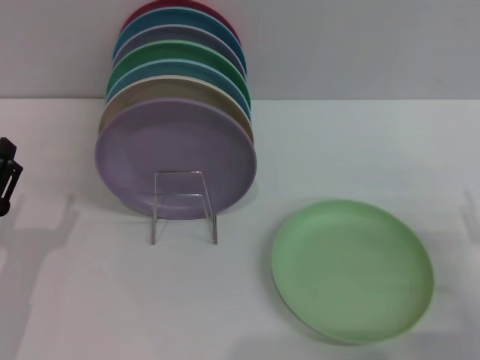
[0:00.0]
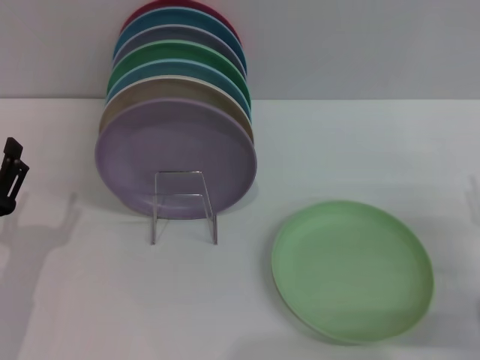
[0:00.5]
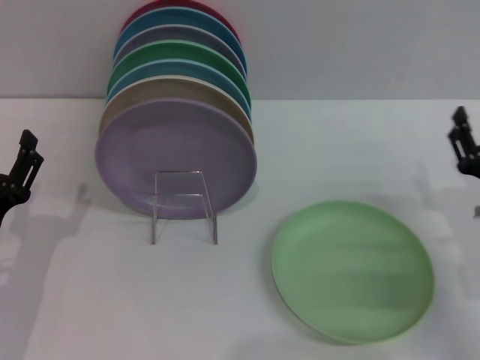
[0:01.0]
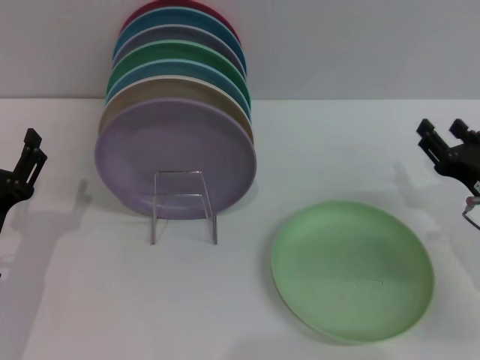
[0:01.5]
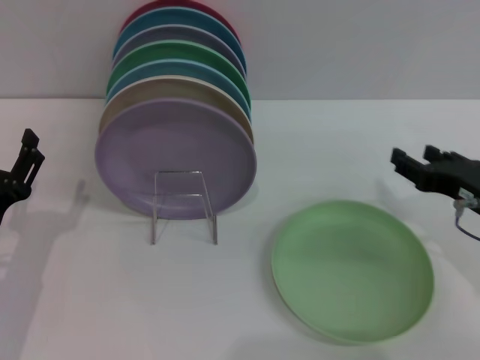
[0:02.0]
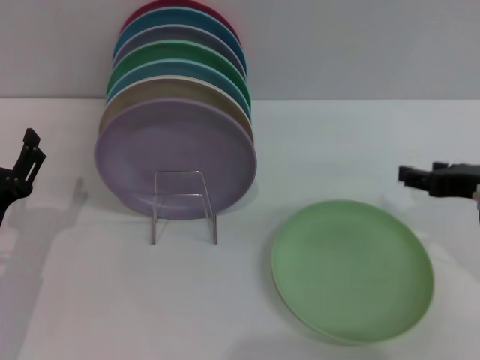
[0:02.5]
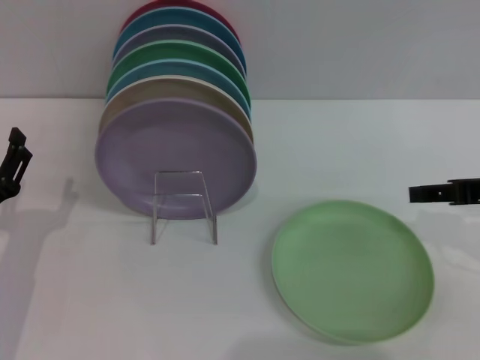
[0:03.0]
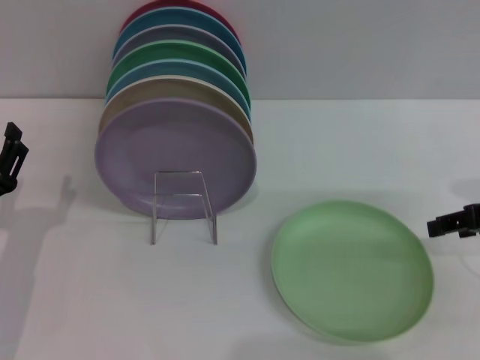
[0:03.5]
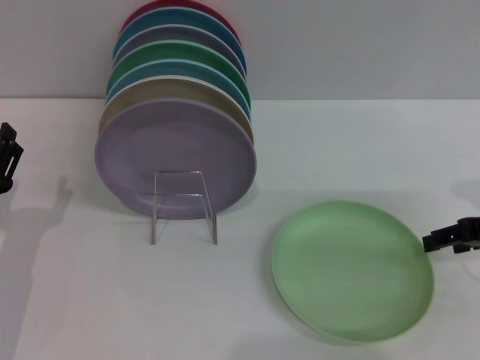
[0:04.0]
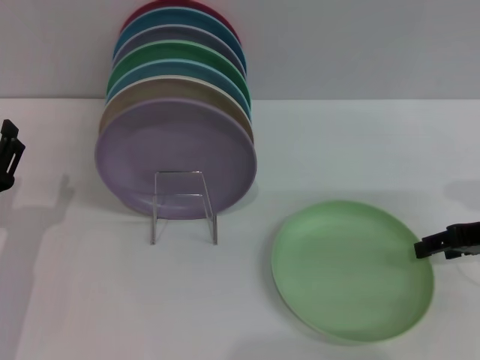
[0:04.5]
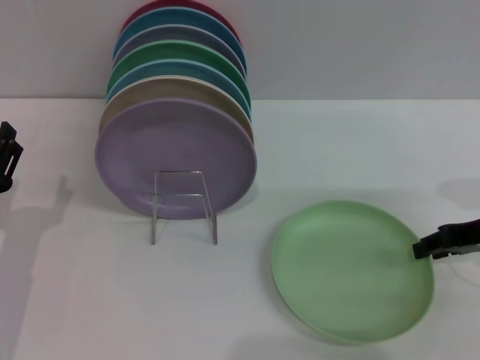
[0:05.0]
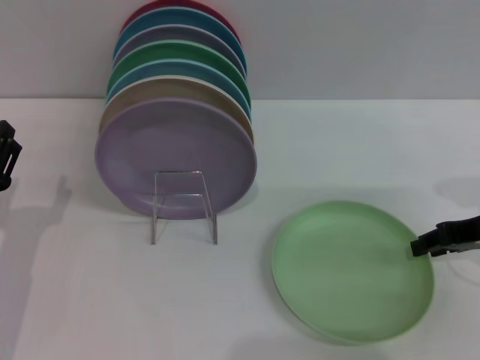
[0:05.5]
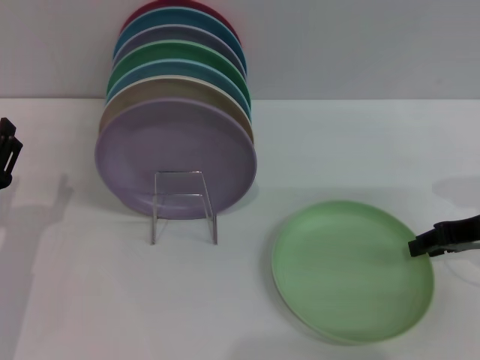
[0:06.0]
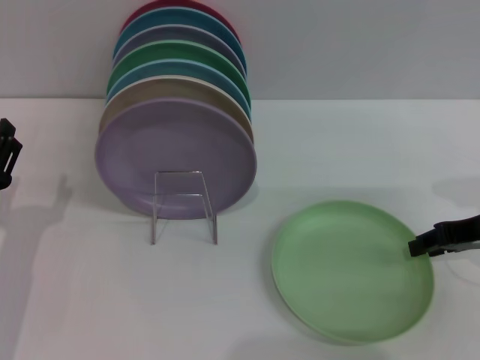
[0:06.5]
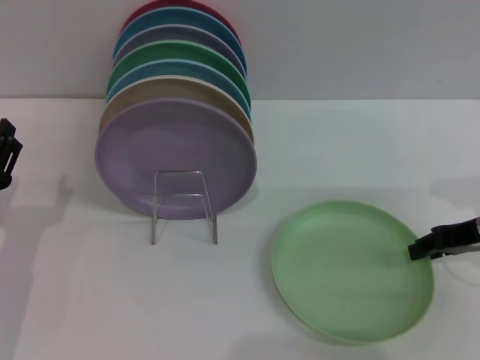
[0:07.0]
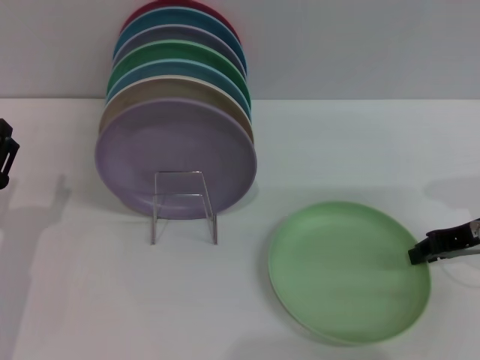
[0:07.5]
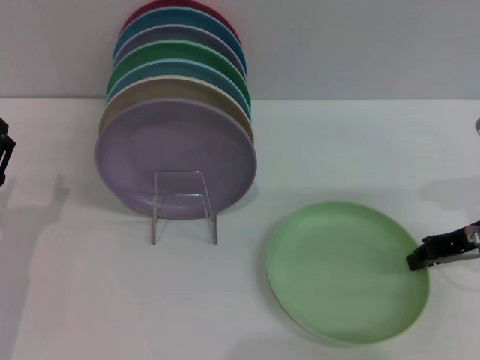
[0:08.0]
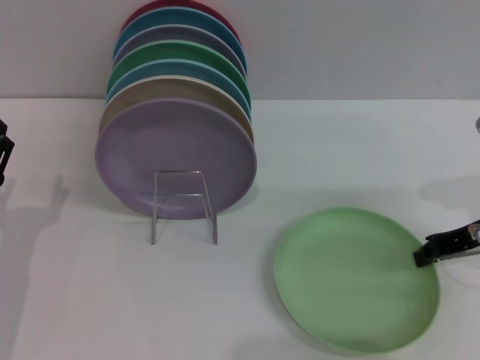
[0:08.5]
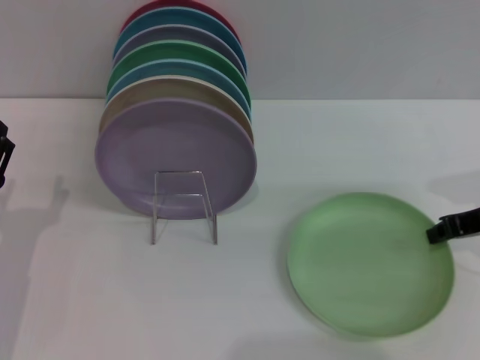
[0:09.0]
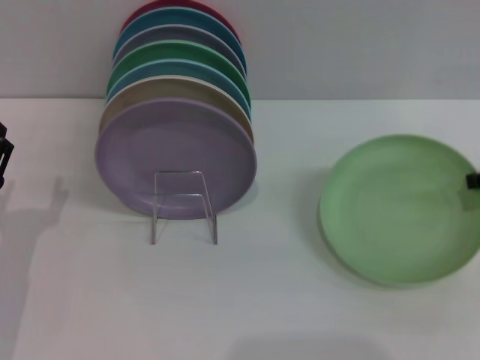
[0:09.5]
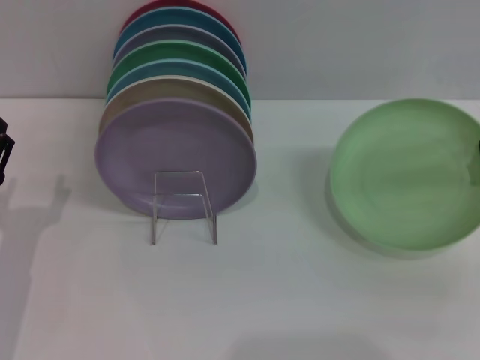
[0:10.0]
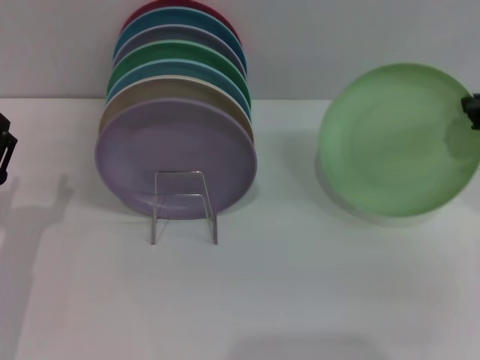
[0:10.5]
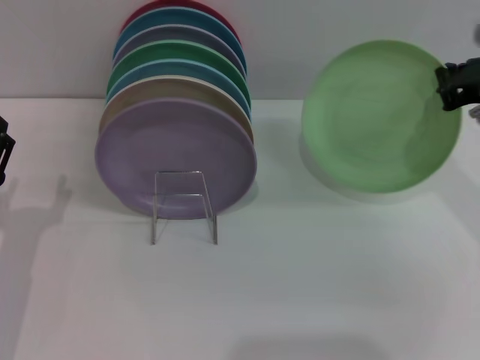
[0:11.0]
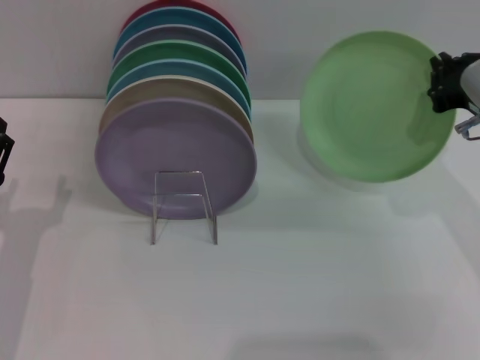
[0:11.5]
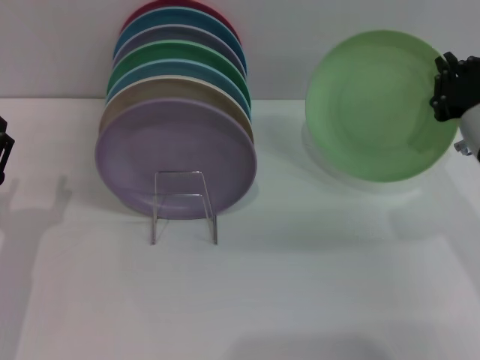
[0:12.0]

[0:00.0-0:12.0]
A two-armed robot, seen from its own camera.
Task of the whole recording: Grip the plate with one hand, pass it to the other, then set it on the shelf.
0:00.0 to 0:02.0: The right gripper heads forward and upward, covering about 10 cm.
0:02.0 to 0:04.0: The right gripper moves roughly 5 cm.
0:06.0 to 0:08.0: There are only small adjustments of the grippers.
0:08.0 to 0:10.0: The right gripper is displaced upward by approximately 5 cm.
0:10.0 to 0:12.0: The right gripper heads to the left and downward, covering about 10 cm.

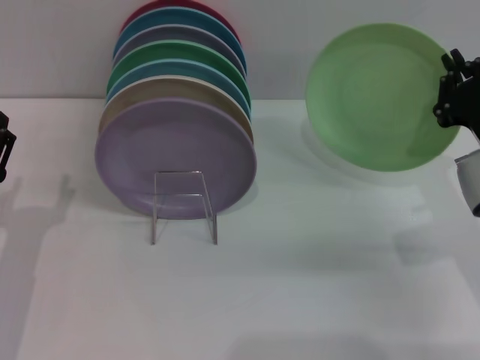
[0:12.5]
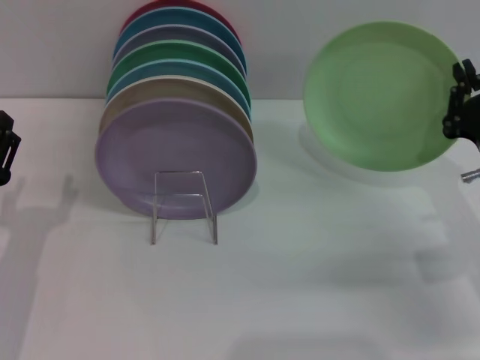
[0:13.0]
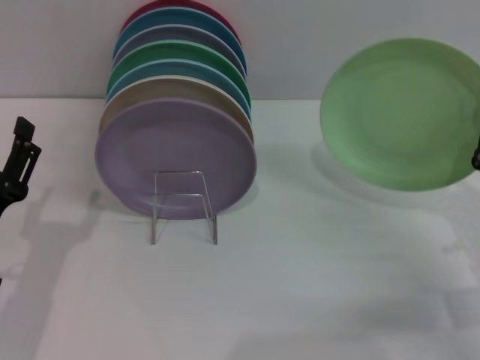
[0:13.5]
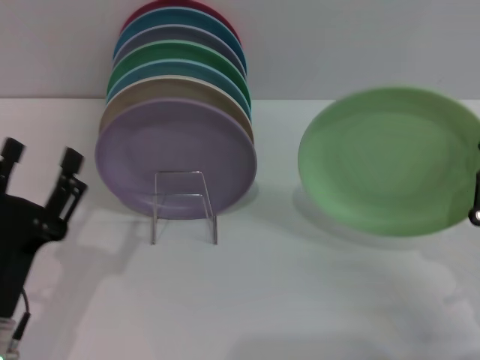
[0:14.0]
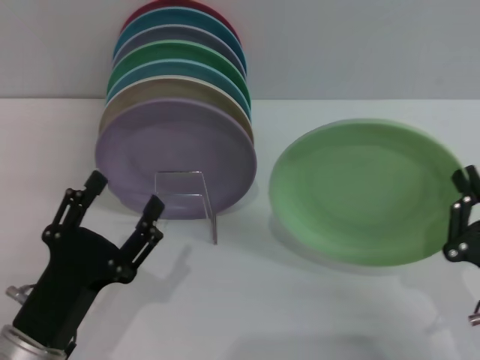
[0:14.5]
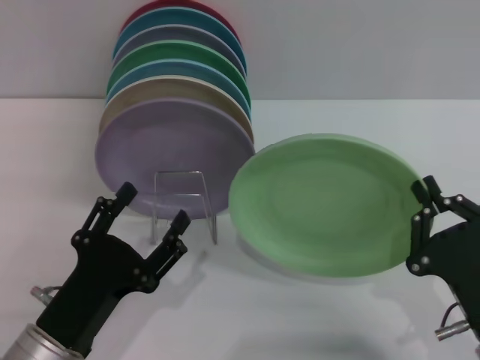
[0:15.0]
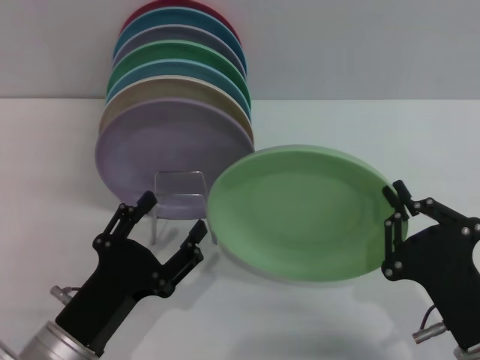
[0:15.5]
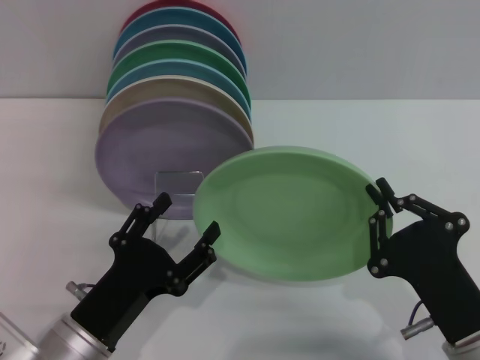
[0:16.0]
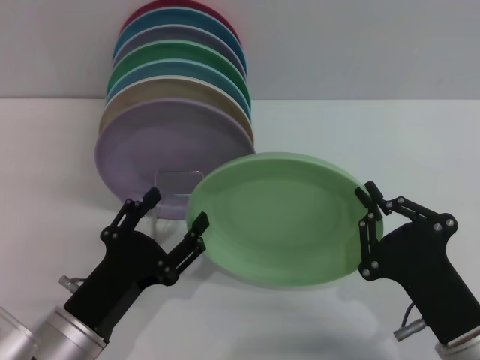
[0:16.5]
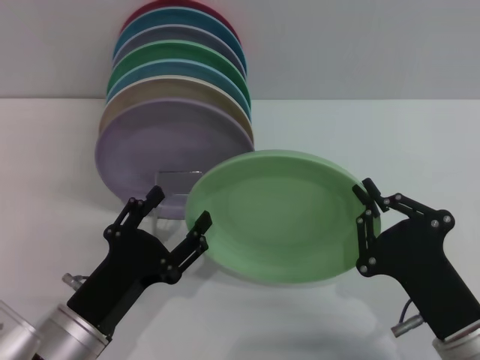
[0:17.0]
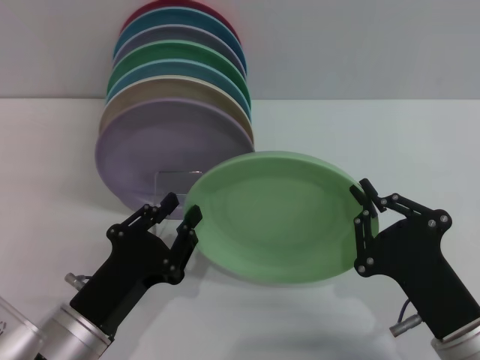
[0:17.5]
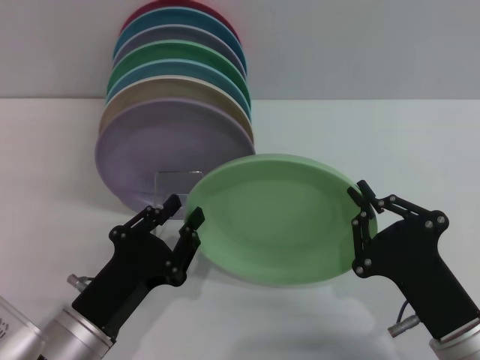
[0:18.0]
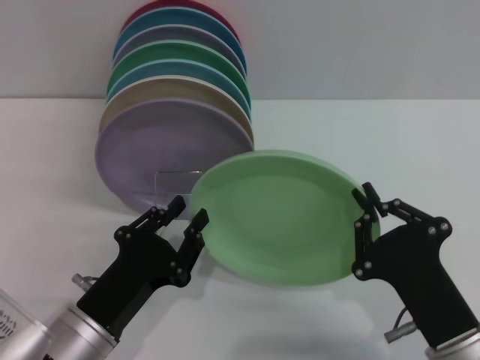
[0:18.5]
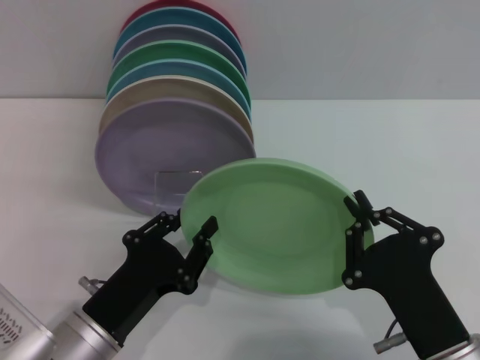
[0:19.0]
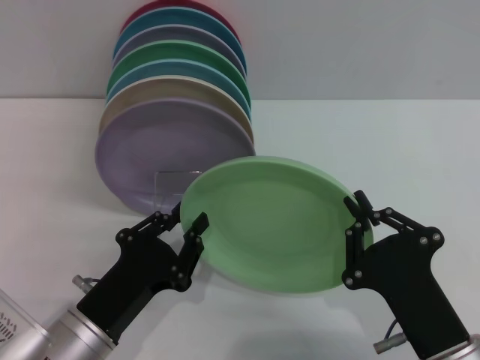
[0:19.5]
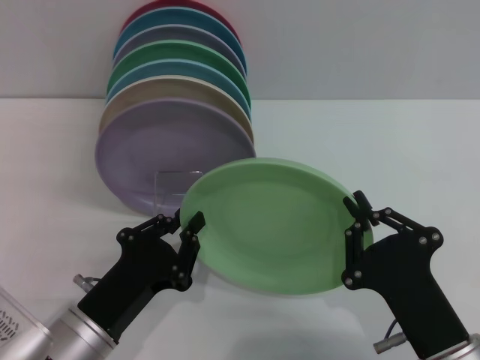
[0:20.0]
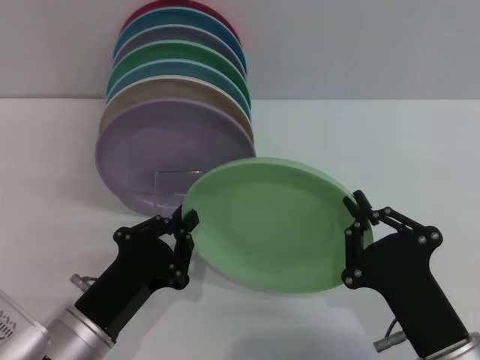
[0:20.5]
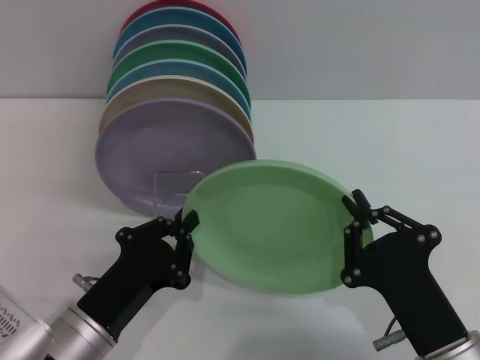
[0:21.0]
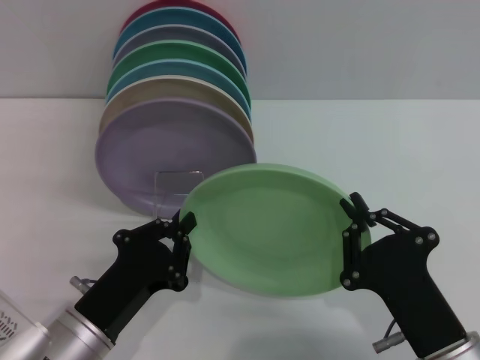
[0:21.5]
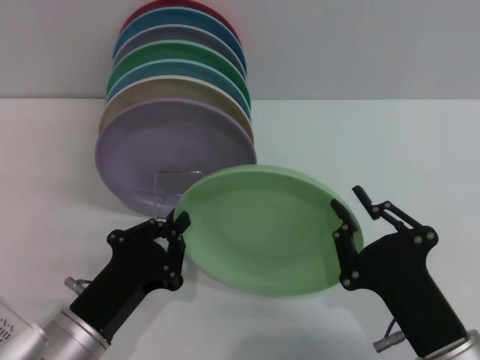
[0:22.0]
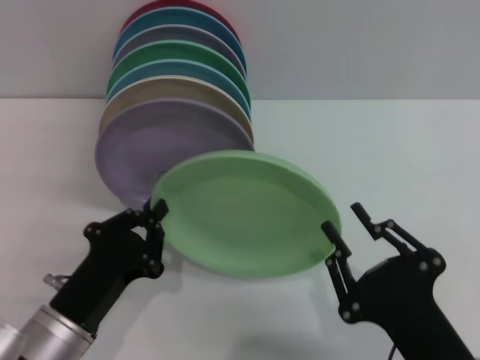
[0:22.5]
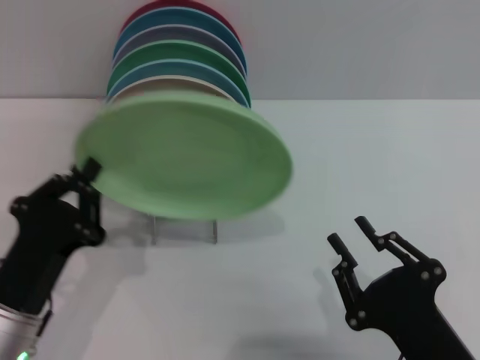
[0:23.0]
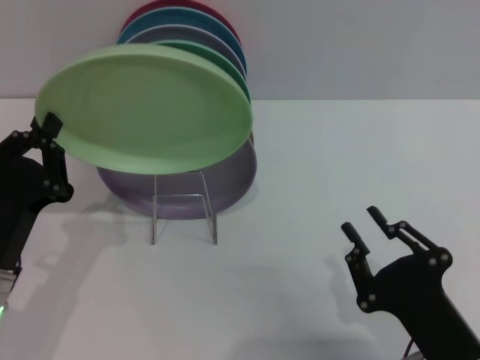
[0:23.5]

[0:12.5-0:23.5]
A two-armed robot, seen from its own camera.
Task of the whole recording: Grip the plate with one hand, pass it to the other, then set it on the shelf.
Step, 0:13.0 to 0:23.0: Pass the plate from the right gripper to the left gripper.
0:12.5 to 0:14.5: The right gripper moves backward and downward, approximately 15 cm; the left gripper is displaced backward and to the right by about 10 cm.
0:16.0 to 0:18.0: The left gripper closes.
0:18.0 to 0:20.0: There are only small adjustments of the grippers.
0:20.0 to 0:21.5: The two grippers keep their place.
0:21.5 to 0:23.5: The right gripper opens up. Meanwhile the left gripper moves to the left, some 5 cm.

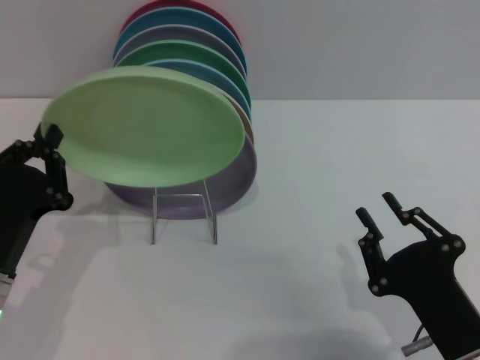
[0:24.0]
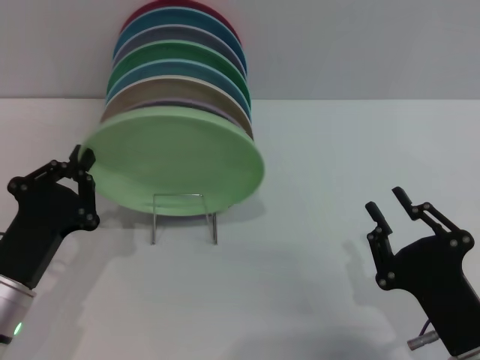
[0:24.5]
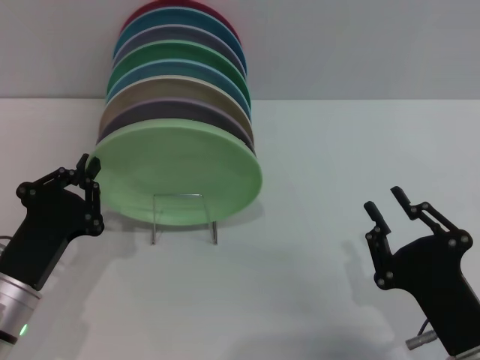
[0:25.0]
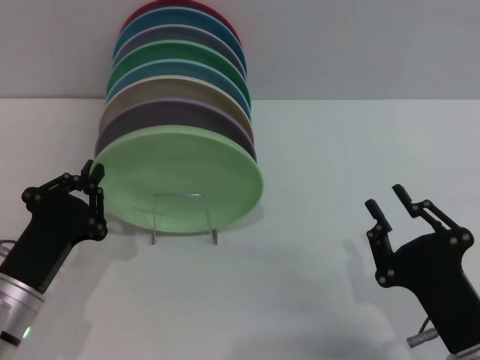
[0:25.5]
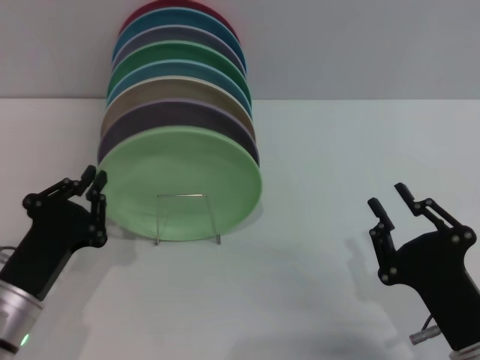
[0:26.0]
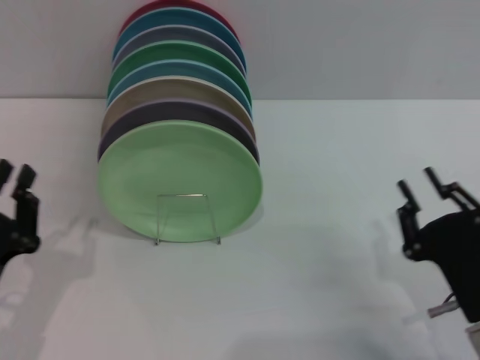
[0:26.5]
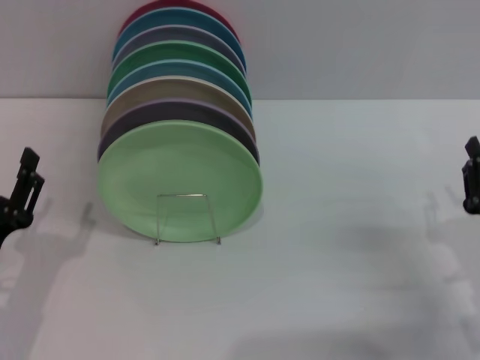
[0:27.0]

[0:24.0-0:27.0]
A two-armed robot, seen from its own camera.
Task of the whole recording: Grip the plate with one hand, pass it to the other, then set it on the shelf.
Step, 0:24.0 to 0:25.5: Place the plate on the shelf with the left gripper.
0:25.5 to 0:27.0: The left gripper opens its fingers; the right gripper shifts roughly 10 cm to the right and forward.
